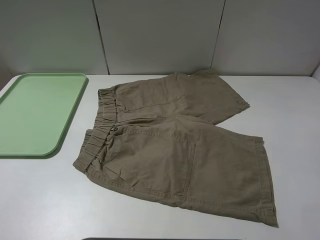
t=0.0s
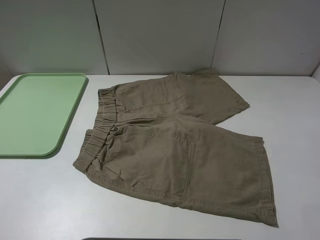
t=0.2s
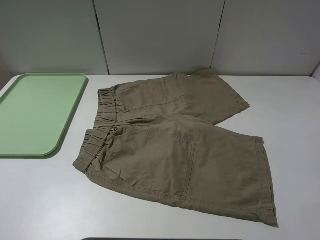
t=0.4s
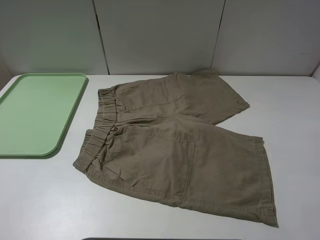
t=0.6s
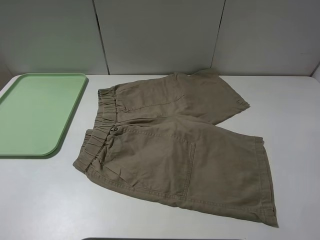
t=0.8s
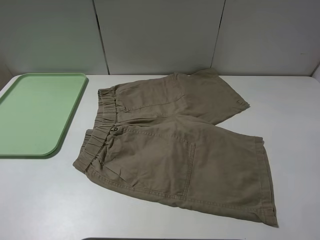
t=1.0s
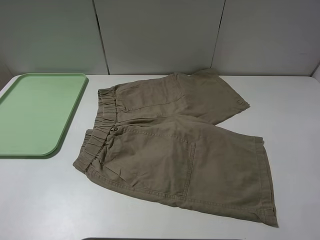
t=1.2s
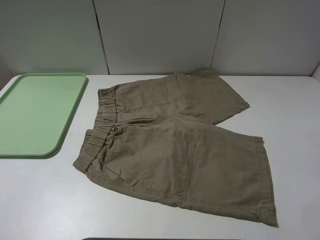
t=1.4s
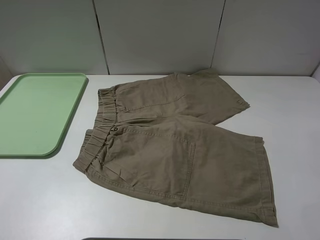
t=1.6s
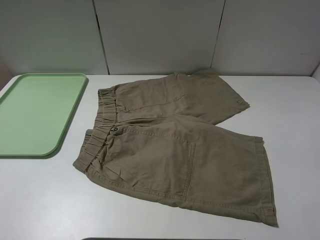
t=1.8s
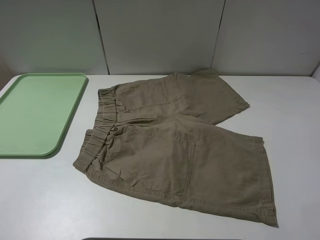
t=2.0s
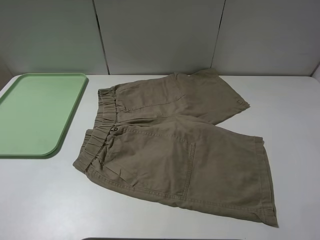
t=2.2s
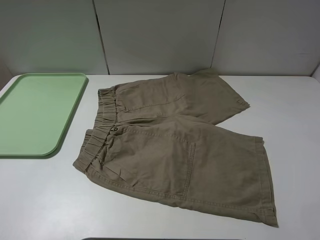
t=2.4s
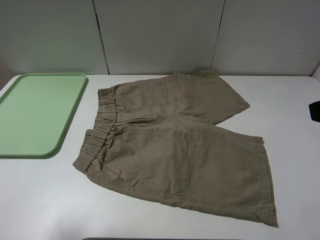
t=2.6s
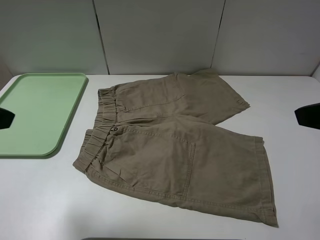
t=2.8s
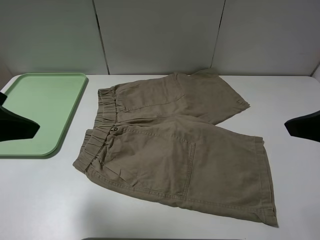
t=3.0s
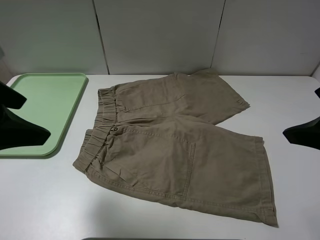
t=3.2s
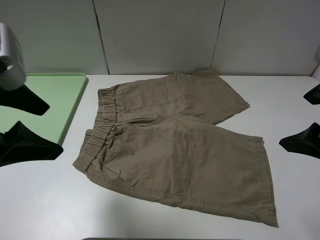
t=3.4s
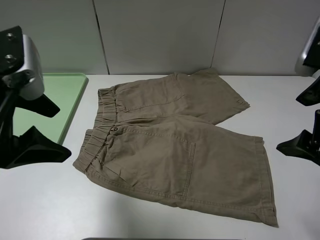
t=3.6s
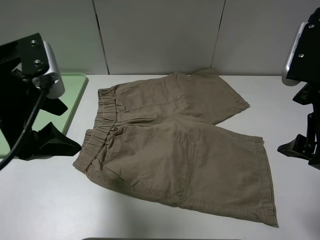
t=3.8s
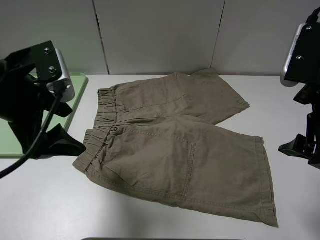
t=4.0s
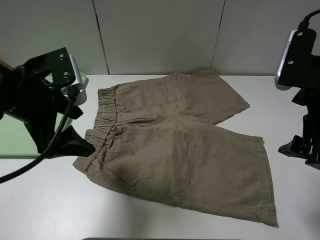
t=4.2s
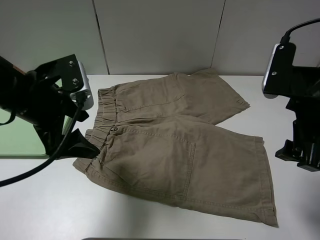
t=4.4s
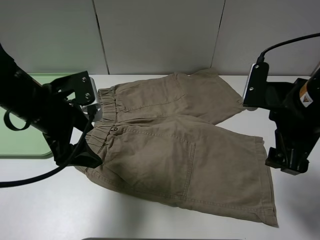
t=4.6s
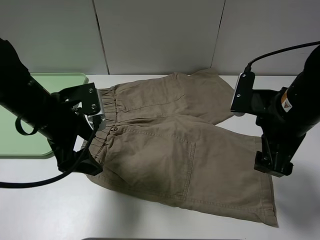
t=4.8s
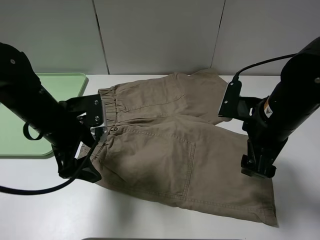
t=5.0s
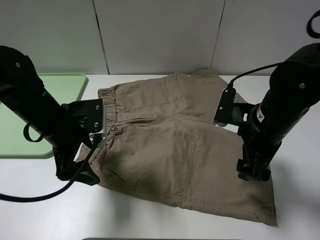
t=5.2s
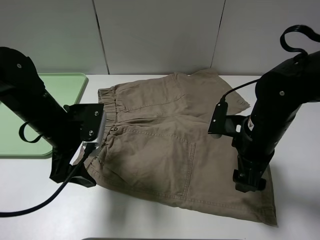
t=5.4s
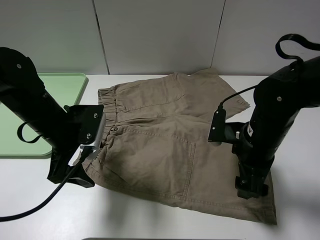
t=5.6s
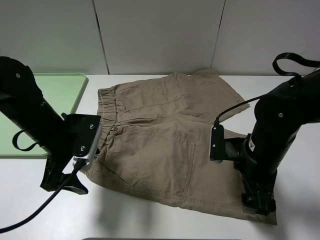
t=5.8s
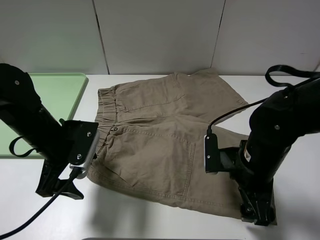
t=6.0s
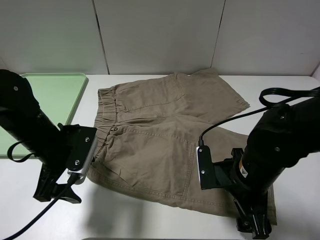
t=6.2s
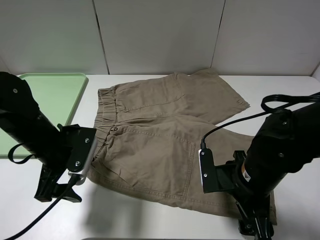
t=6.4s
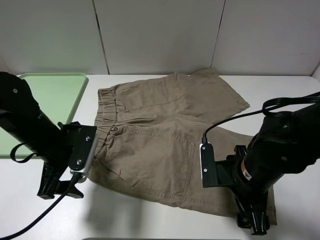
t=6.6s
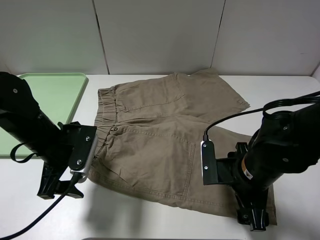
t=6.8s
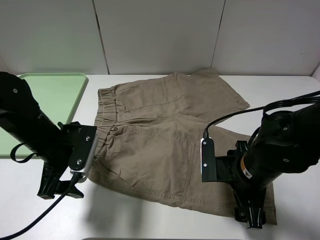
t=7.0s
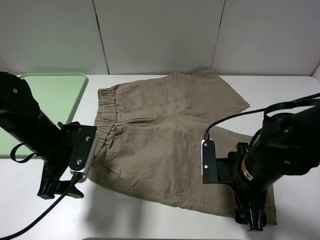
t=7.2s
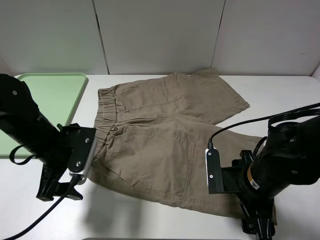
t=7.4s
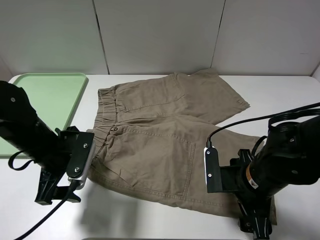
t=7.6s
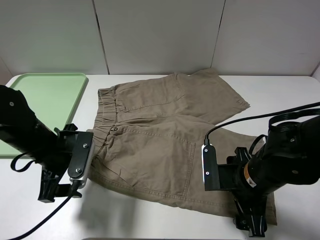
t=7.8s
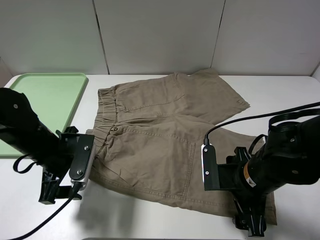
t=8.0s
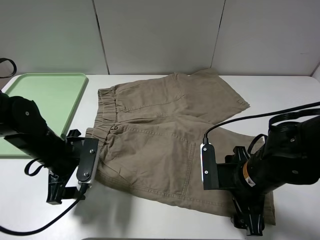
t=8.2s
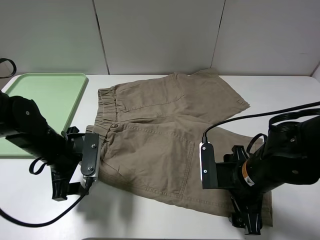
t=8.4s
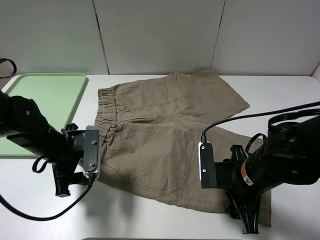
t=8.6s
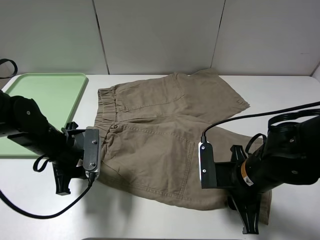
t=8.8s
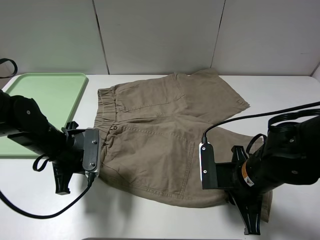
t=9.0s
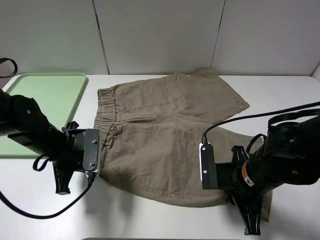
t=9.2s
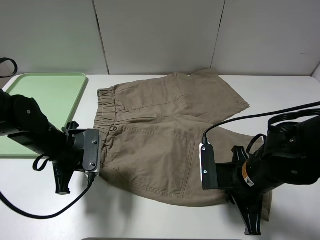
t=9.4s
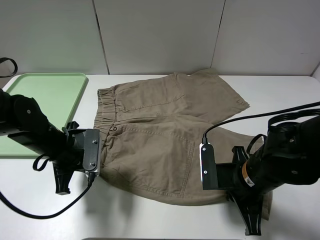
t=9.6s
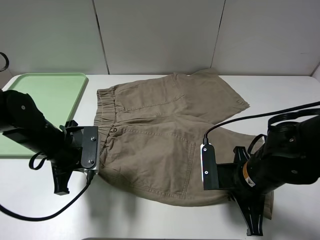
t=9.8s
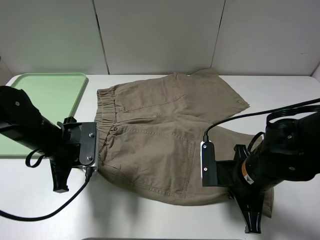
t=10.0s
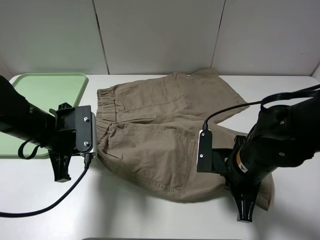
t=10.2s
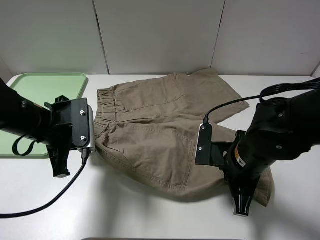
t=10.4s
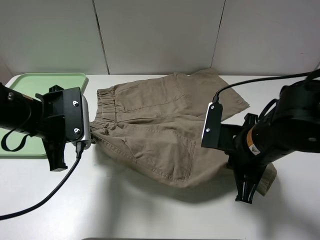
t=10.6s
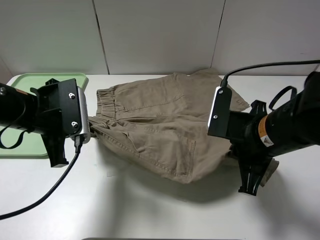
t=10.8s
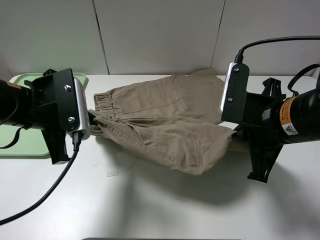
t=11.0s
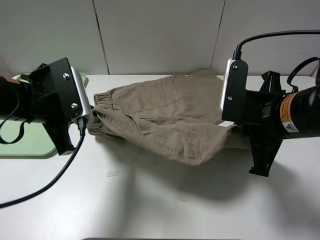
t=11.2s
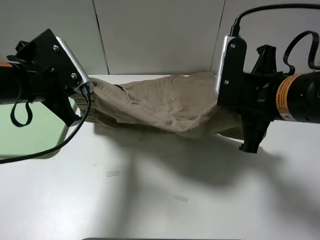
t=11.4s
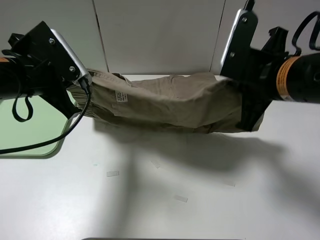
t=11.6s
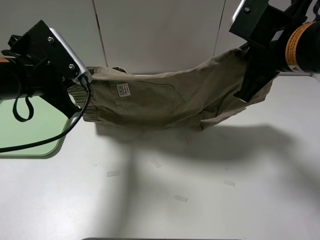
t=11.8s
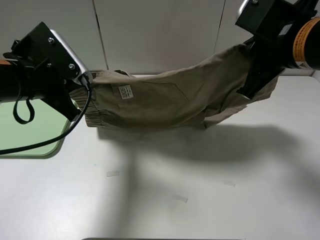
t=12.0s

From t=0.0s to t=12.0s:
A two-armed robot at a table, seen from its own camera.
Task of the whole recording: fold the khaki jeans in half with two grippers, then fold them in half again, and use the left claw to place the folded fold khaki jeans on the tray.
Step, from t=0.0s to t=9.6s: Grasp the khaki trousers with the left gripper.
From t=0.0s to t=1.6s: Neither gripper changes place.
From t=1.6s to t=3.0s: The right gripper shifts roughly 15 cm forward. Meanwhile the left gripper goes approximately 15 cm forward and to the right.
From t=3.0s to t=4.4s: The right gripper goes some 5 cm downward, while the left gripper travels downward, forward and to the right by approximately 15 cm.
From t=4.4s to t=6.0s: The right gripper travels downward by about 15 cm. Meanwhile the left gripper travels downward by some 10 cm.
From t=7.6s to t=9.0s: The right gripper closes; the left gripper closes its fingers.
From t=9.0s to t=10.4s: The left gripper is displaced upward by some 10 cm.
From t=10.4s to t=12.0s: The left gripper is displaced upward by approximately 10 cm, while the right gripper is displaced upward by roughly 15 cm.

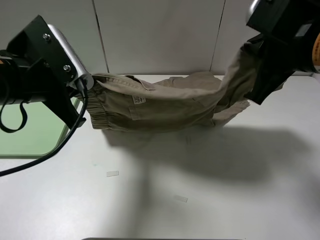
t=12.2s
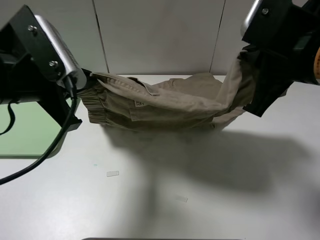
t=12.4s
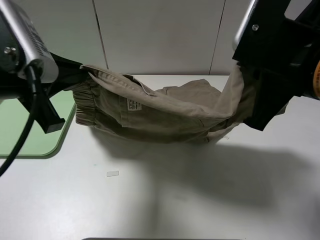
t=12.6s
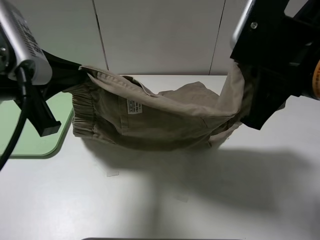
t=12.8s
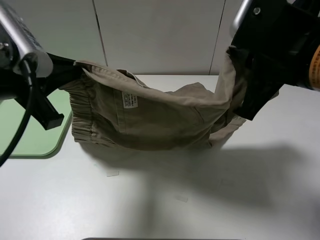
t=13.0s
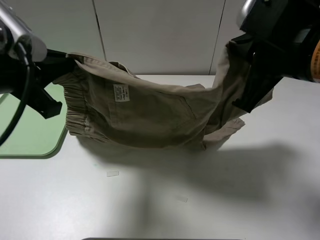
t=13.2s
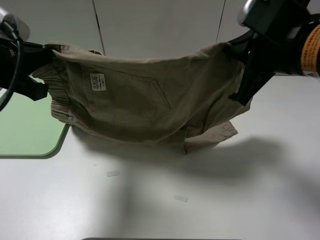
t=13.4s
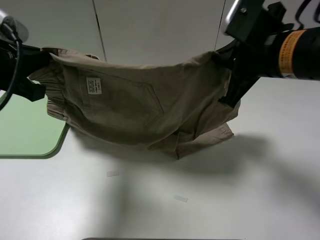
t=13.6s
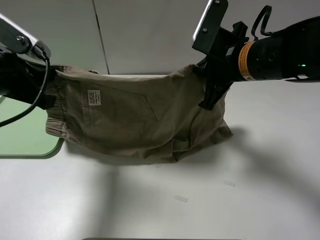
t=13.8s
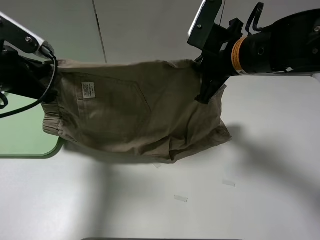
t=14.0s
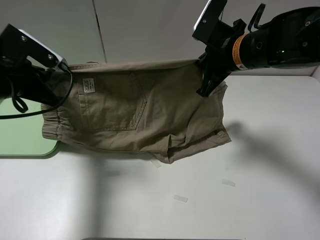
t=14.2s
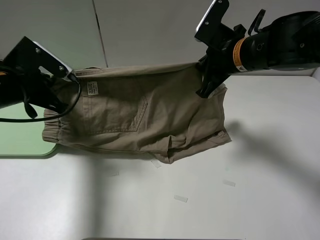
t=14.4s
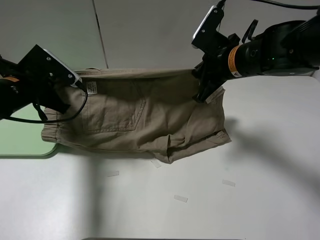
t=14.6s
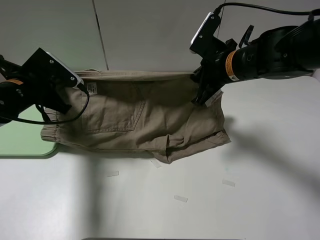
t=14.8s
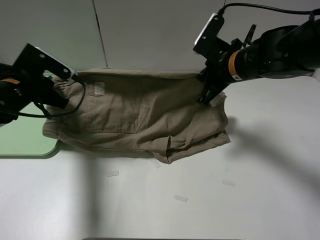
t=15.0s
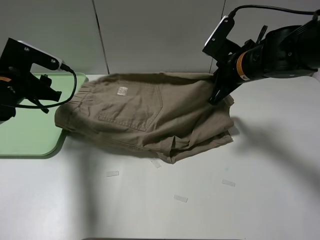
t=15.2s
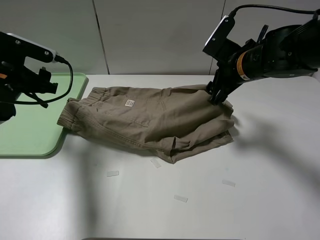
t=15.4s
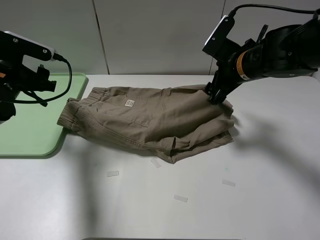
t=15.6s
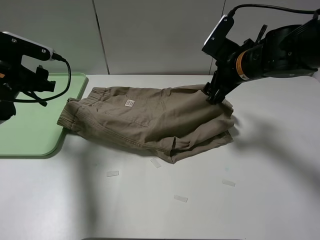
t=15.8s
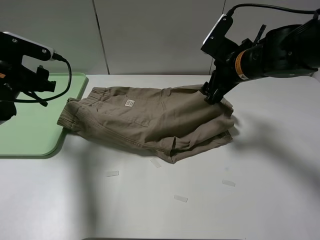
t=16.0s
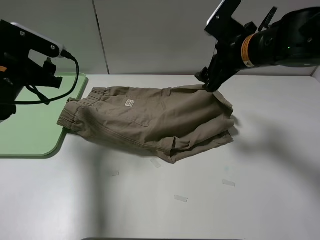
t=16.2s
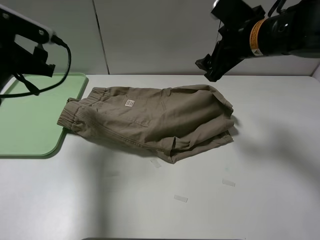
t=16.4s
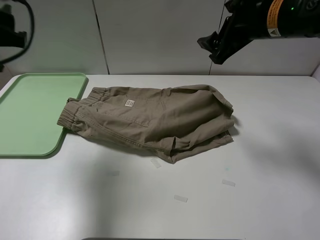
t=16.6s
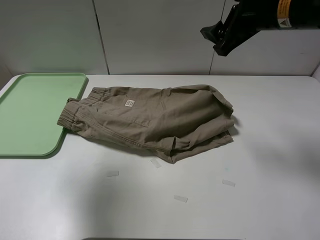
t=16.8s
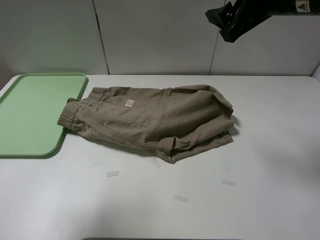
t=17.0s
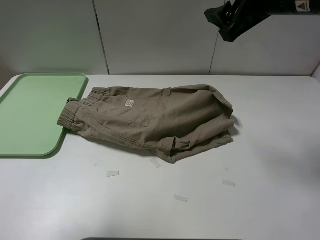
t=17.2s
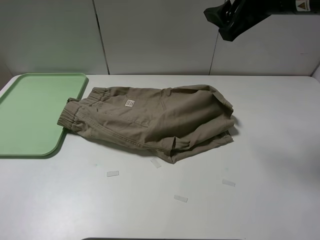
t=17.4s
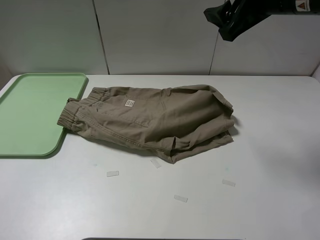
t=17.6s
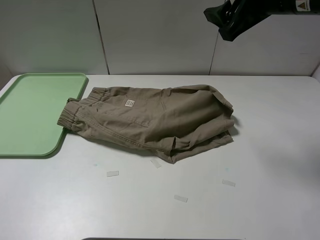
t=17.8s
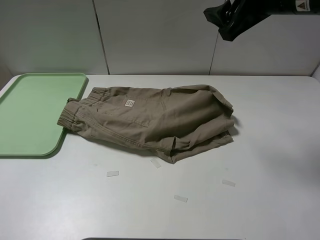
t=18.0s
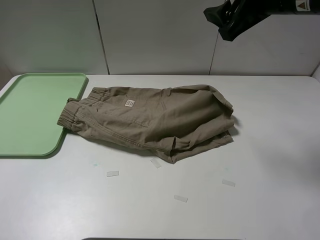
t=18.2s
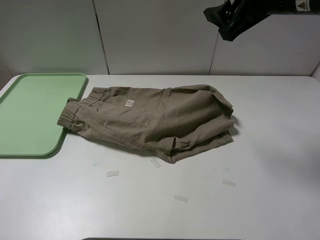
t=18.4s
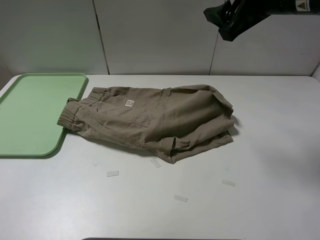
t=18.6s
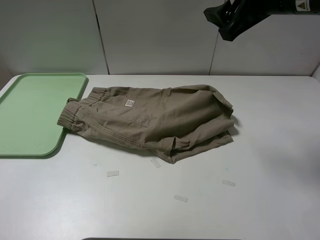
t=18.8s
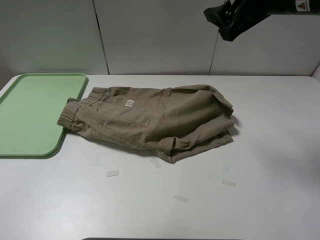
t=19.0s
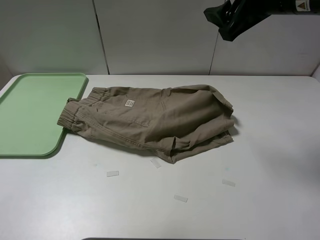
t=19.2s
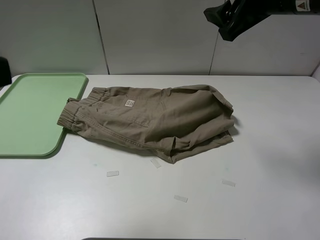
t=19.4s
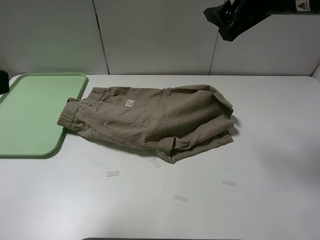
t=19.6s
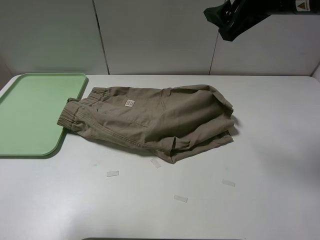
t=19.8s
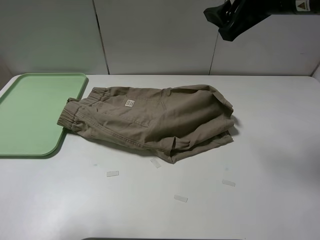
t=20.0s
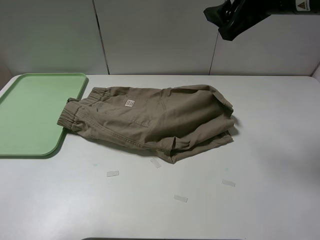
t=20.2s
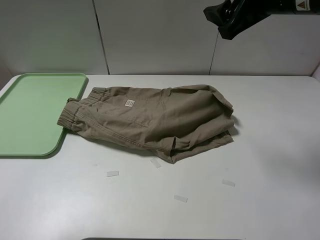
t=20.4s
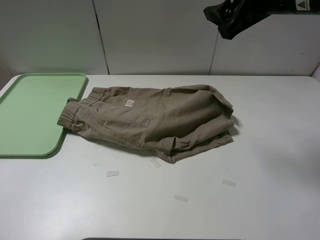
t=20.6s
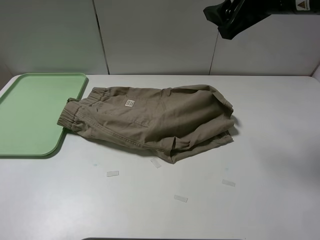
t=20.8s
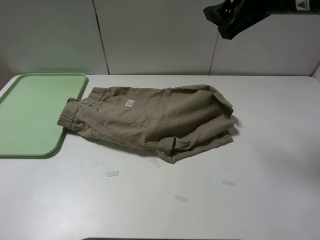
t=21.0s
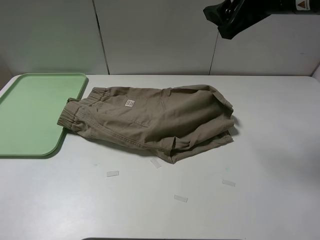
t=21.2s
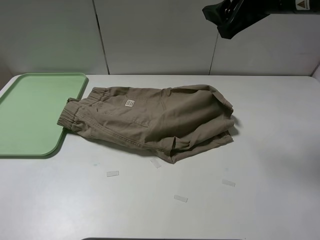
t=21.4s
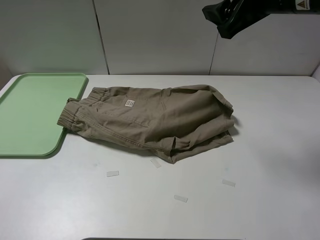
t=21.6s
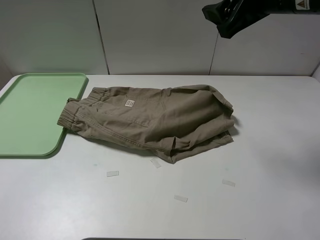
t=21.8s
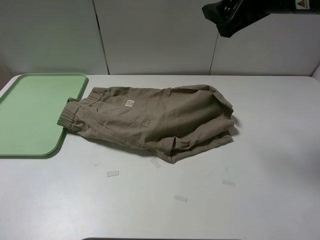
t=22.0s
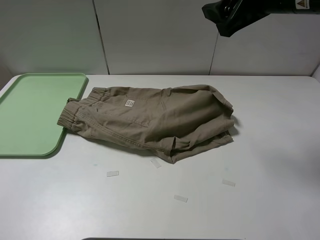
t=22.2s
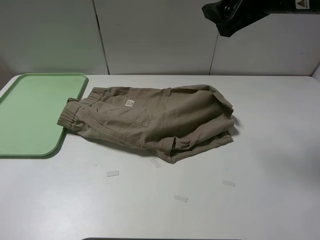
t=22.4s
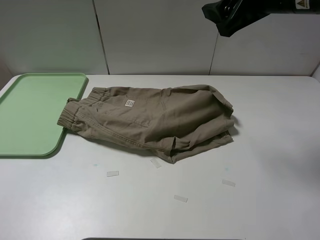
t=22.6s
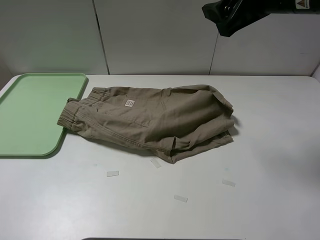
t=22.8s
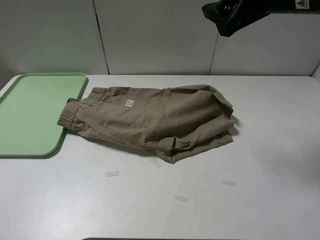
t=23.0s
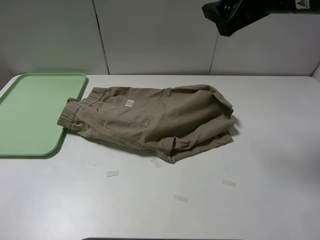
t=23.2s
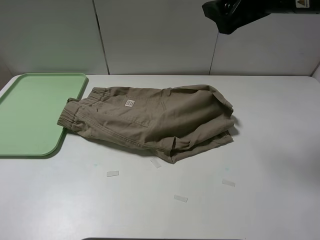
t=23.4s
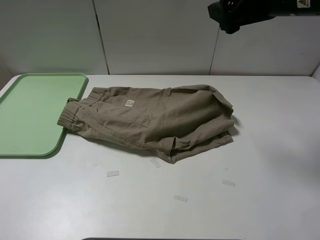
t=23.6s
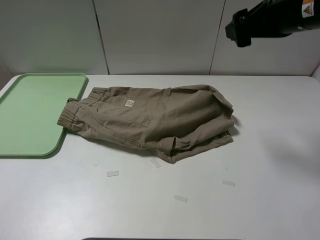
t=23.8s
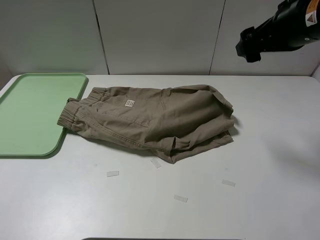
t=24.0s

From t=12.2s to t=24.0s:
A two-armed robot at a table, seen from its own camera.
Task of the whole recording: fold the khaki jeans in half with two grippers, then fold them in half again, and use the left claw to place the folded fold khaki jeans on the tray.
Step, from t=12.2s to t=15.0s: Fold the khaki trousers upwards with the left gripper.
From t=12.2s to t=13.6s: The left gripper moves to the left, approximately 5 cm; the right gripper moves about 5 cm.
From t=13.6s to t=15.2s: The left gripper heads downward and forward, covering approximately 15 cm, and opens up. The right gripper moves forward and downward, approximately 10 cm.
From t=15.2s to t=16.6s: The left gripper goes some 15 cm upward and backward. The right gripper is displaced upward by about 10 cm, and opens its fingers.
From t=16.6s to t=18.2s: The left gripper heads backward and upward, covering roughly 20 cm.
From t=18.2s to t=19.6s: The left gripper heads downward and to the right, covering roughly 10 cm.
From t=19.6s to t=21.0s: The left gripper shifts about 10 cm backward.
